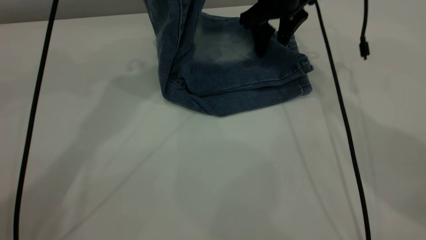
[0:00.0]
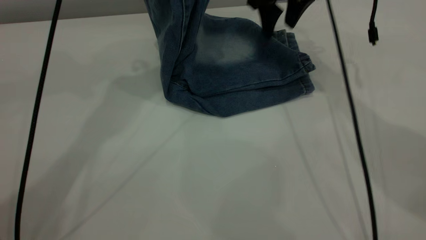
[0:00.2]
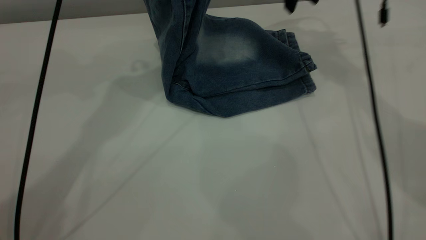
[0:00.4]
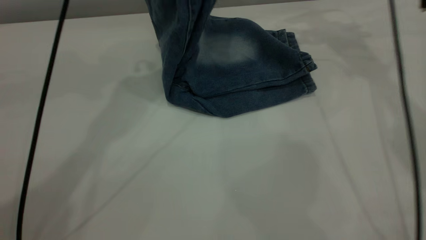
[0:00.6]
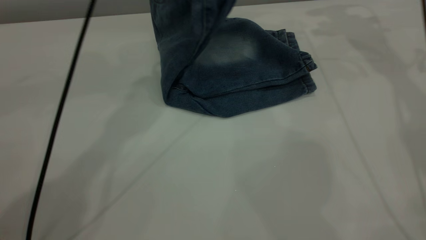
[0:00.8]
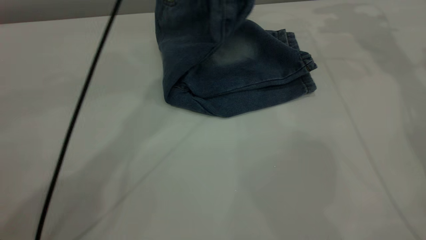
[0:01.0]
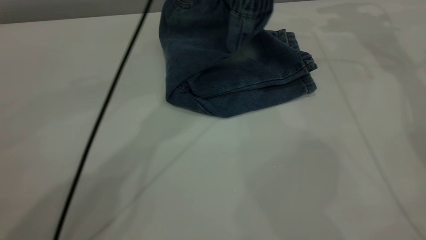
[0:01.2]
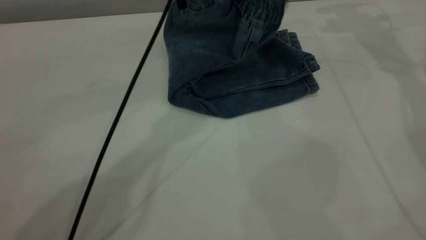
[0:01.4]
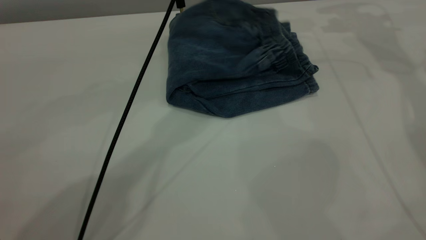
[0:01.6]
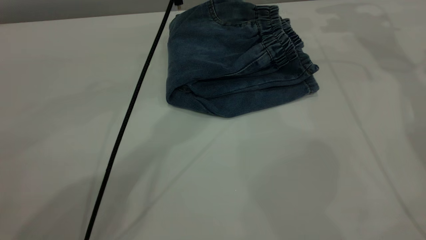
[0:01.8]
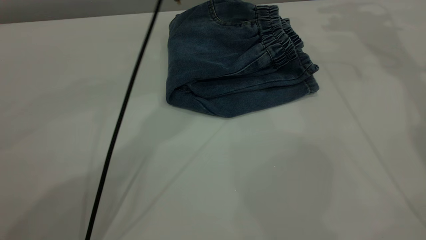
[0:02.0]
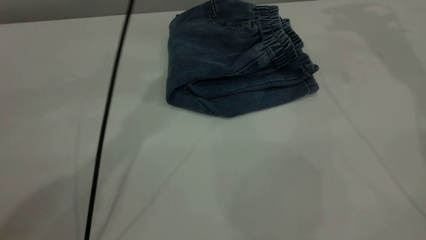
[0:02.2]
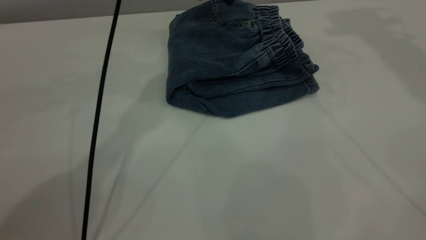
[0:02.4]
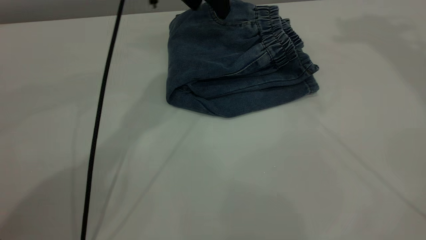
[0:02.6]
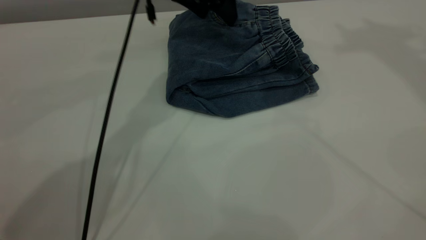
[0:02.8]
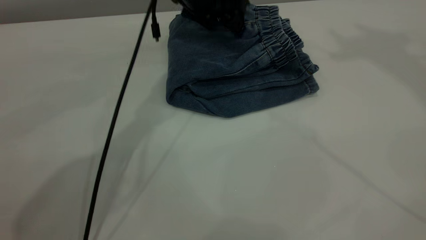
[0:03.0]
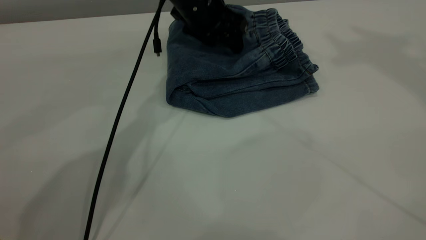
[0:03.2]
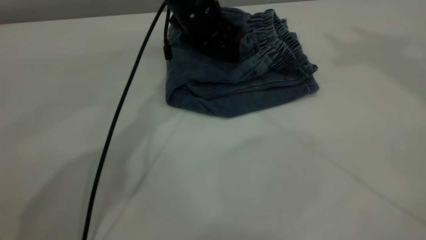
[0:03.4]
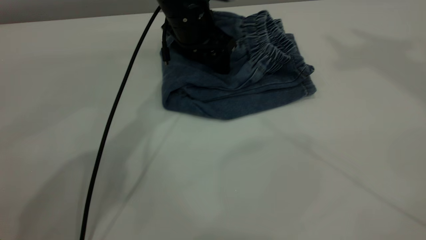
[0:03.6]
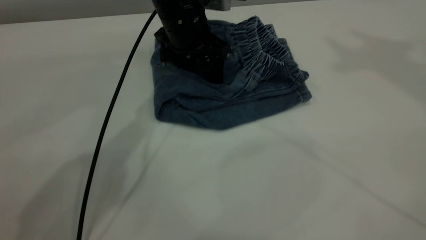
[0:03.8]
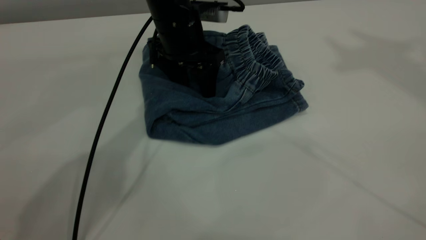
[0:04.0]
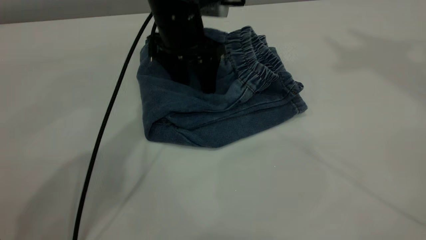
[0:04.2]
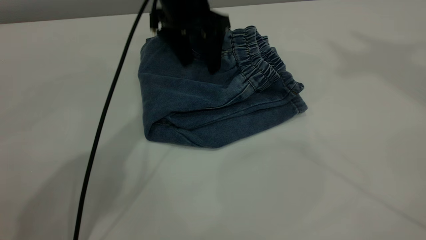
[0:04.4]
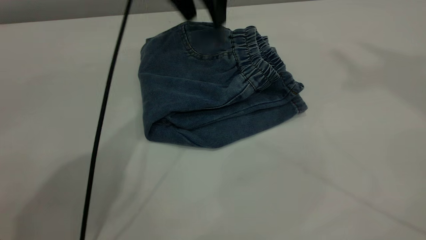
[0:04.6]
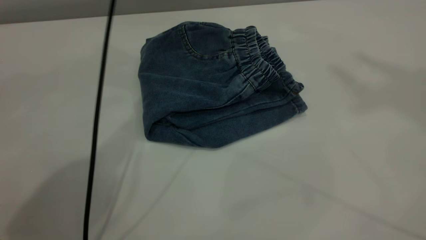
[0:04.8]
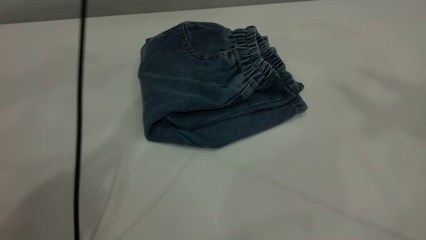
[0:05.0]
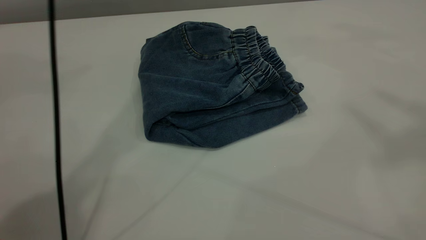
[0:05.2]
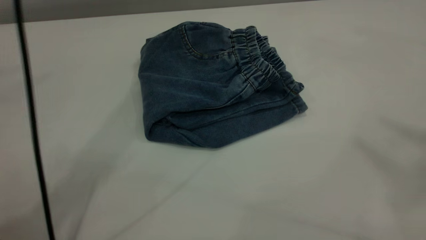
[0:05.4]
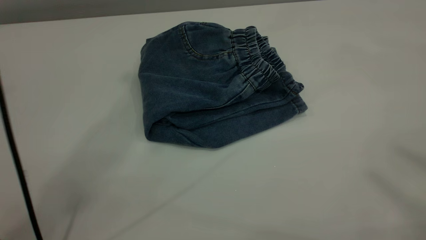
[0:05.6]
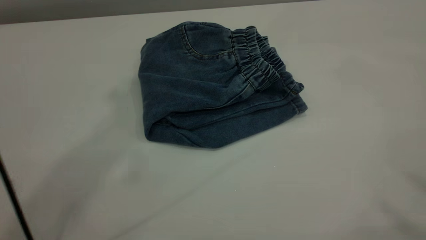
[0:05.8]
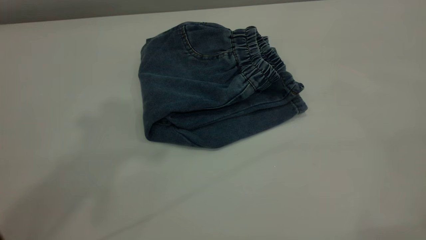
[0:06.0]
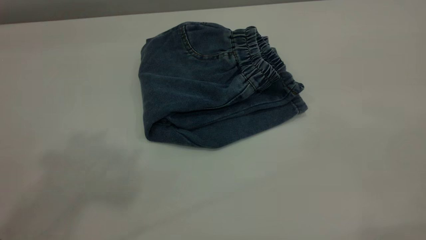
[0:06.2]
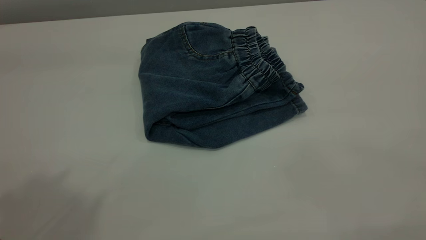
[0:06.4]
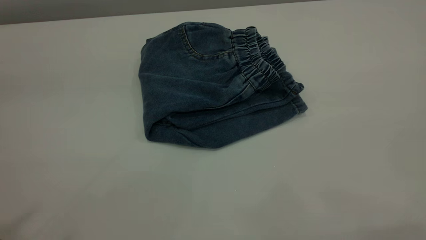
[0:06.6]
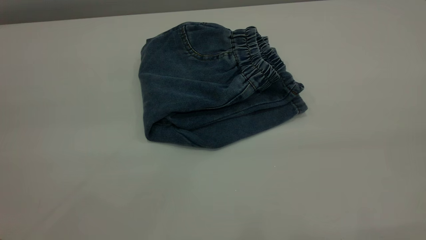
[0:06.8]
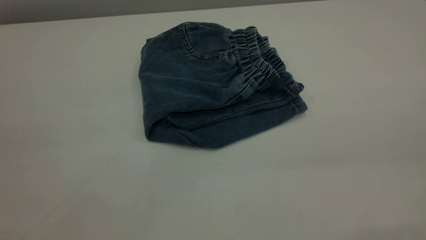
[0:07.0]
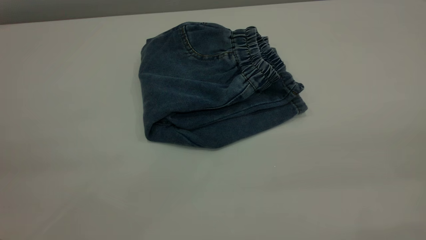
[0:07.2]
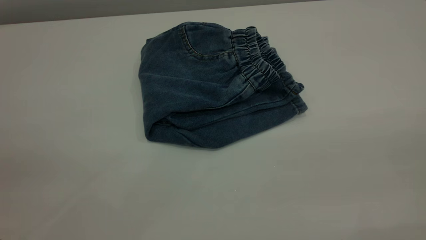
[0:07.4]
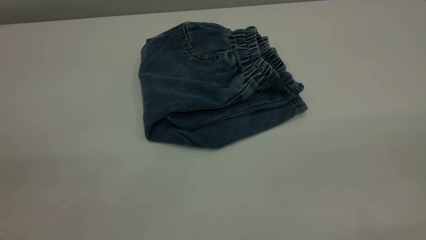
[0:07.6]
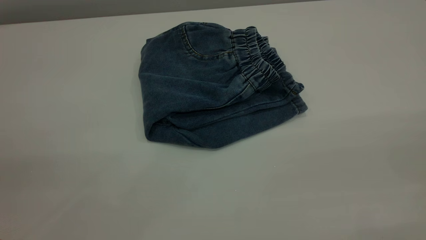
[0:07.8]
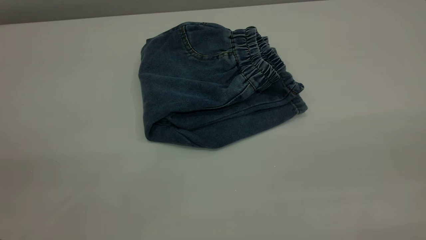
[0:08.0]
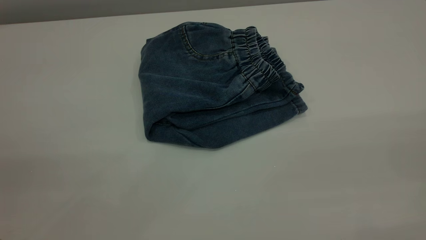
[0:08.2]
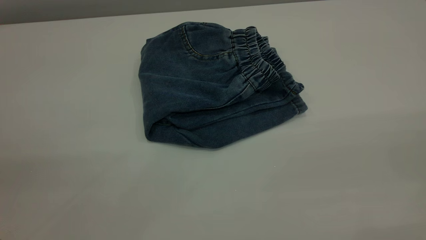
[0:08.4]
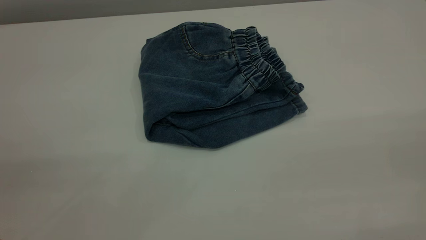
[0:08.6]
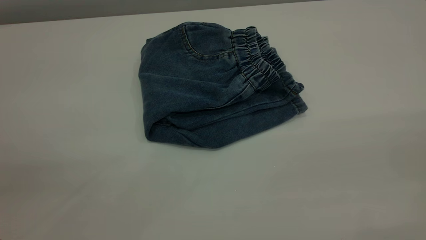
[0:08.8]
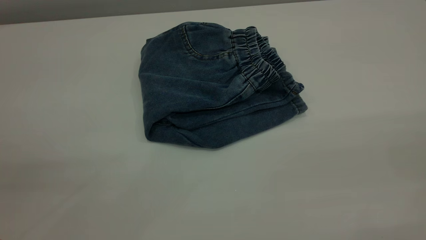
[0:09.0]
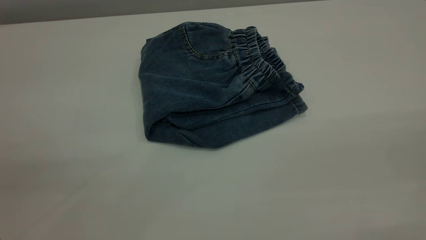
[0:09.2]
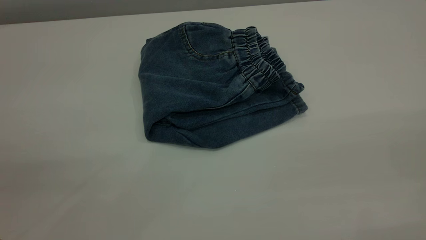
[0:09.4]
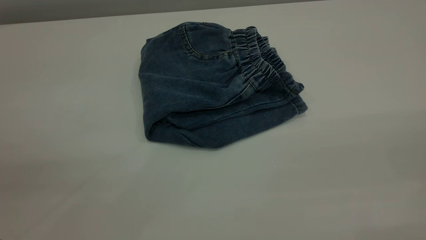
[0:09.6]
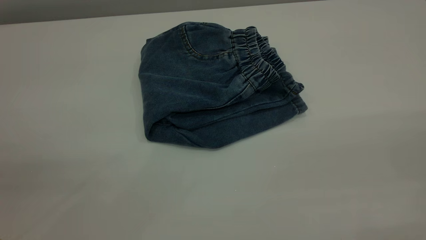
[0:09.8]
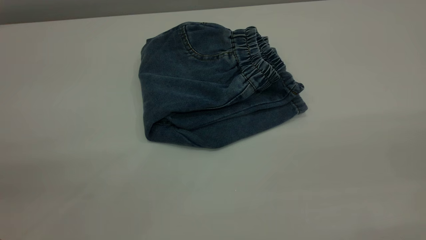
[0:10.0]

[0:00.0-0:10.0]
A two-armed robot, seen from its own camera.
Step, 0.0 to 2.4 s: Fold the pants from left to right.
0.0 to 1.4 s: The right gripper travels to the right and upward by some 20 cm, while the left gripper is displaced to the right and downward by roughly 15 cm.
1.4 to 2.8 s: The right gripper is displaced upward and backward by approximately 30 cm; the left gripper is displaced to the left by approximately 5 cm, and opens up.
2.8 to 4.2 s: The left gripper ends up roughly 5 cm from where it was, while the right gripper ends up some 5 cm from where it was.
4.2 to 5.8 s: The left gripper travels upward by some 40 cm. The right gripper shifts about 25 cm backward.
5.8 to 7.2 s: The left gripper travels backward, to the left and downward by about 35 cm.

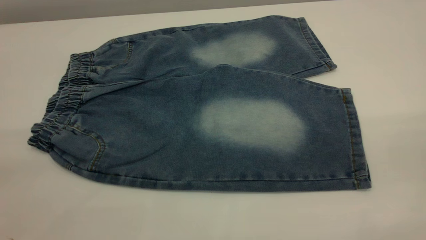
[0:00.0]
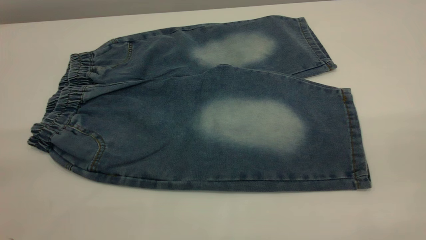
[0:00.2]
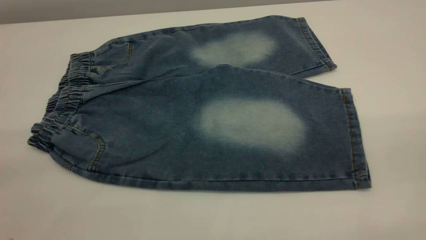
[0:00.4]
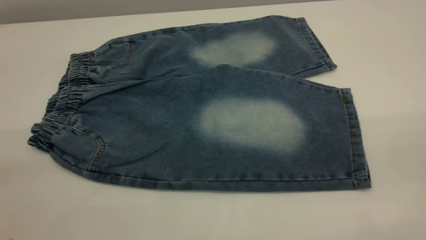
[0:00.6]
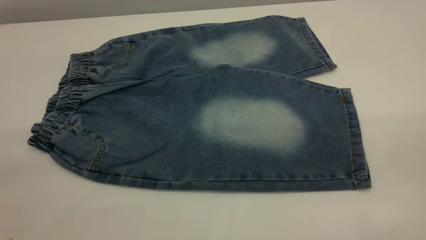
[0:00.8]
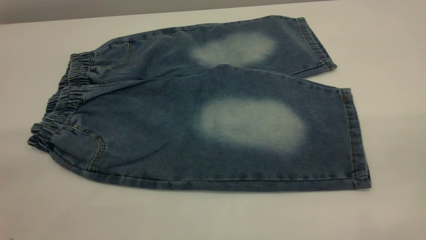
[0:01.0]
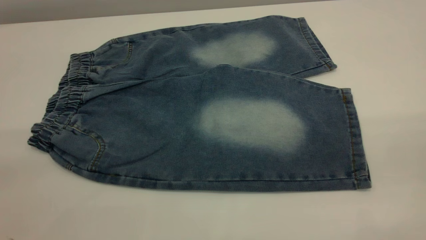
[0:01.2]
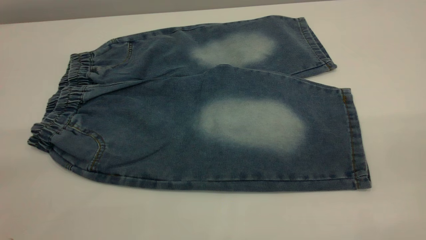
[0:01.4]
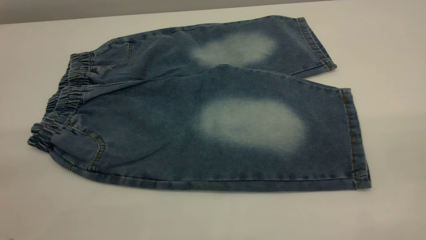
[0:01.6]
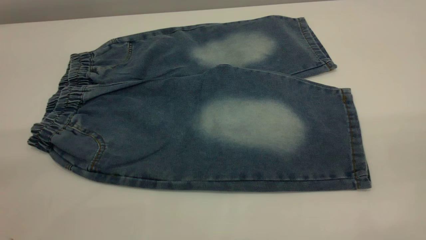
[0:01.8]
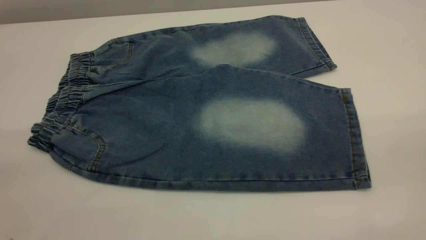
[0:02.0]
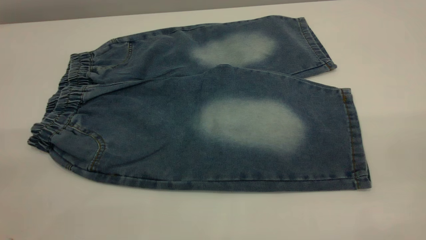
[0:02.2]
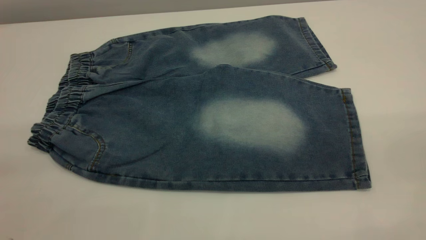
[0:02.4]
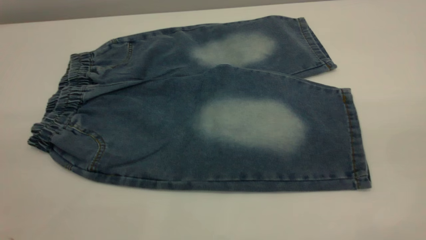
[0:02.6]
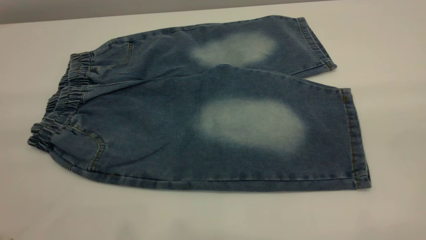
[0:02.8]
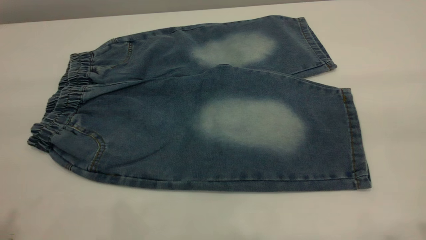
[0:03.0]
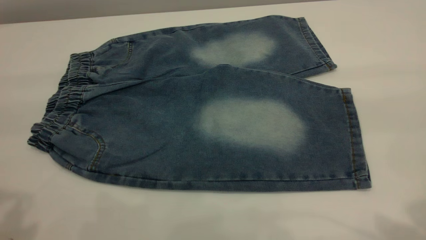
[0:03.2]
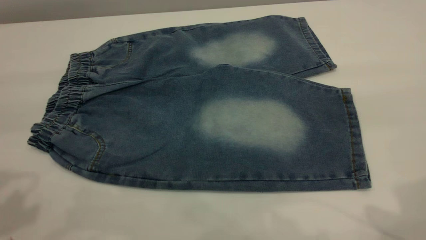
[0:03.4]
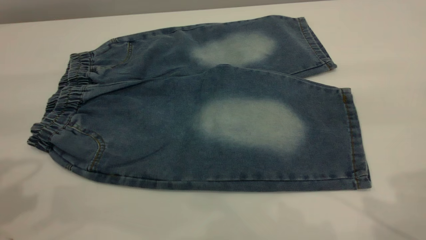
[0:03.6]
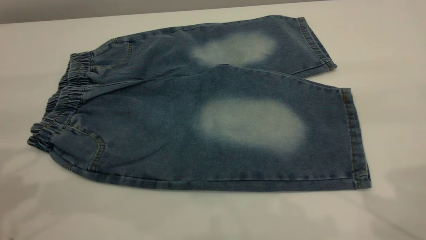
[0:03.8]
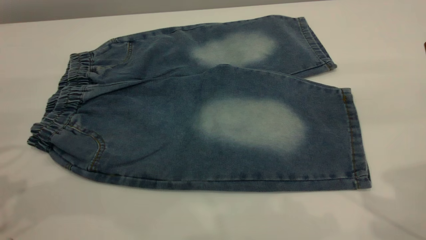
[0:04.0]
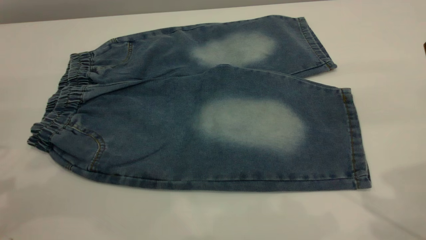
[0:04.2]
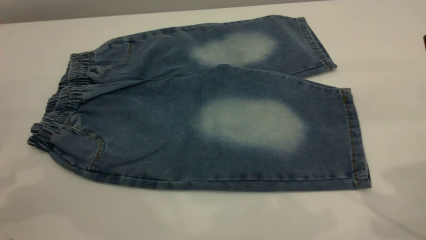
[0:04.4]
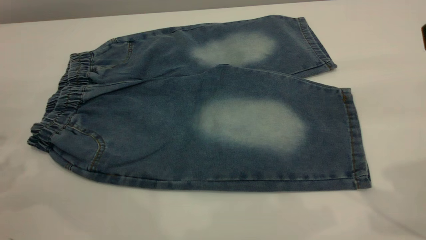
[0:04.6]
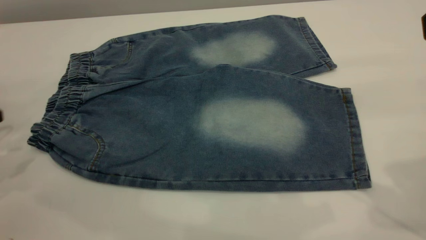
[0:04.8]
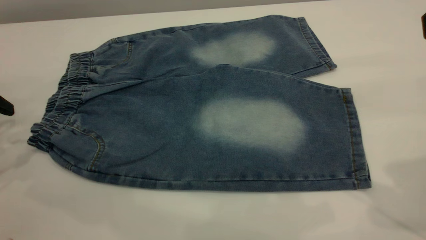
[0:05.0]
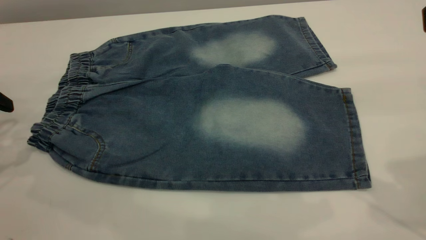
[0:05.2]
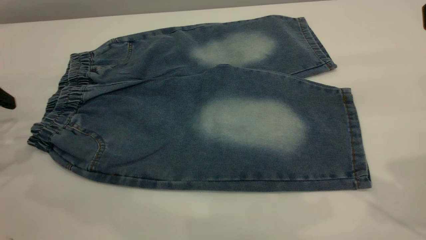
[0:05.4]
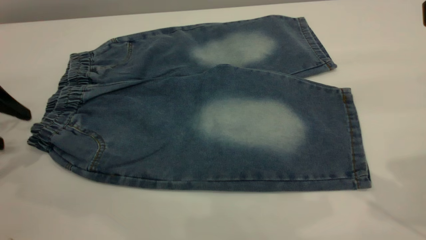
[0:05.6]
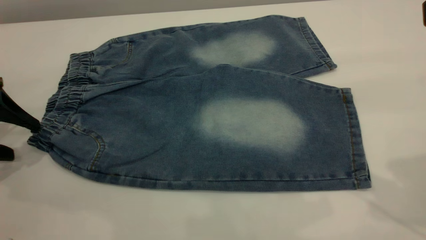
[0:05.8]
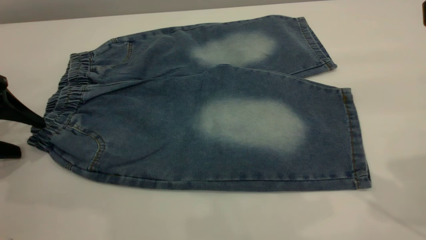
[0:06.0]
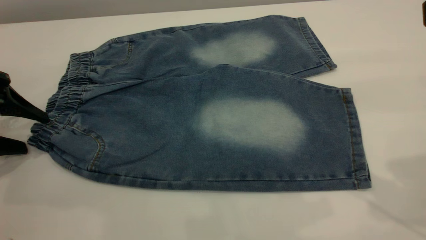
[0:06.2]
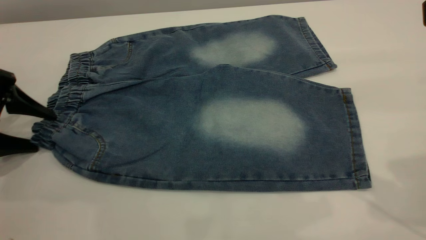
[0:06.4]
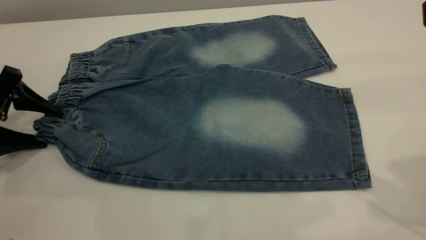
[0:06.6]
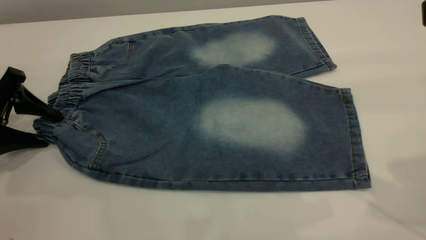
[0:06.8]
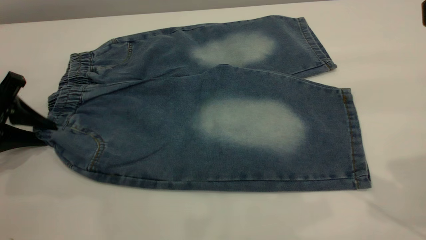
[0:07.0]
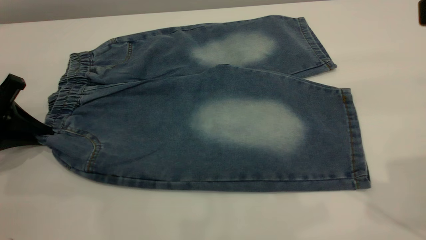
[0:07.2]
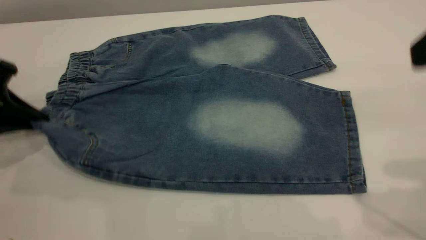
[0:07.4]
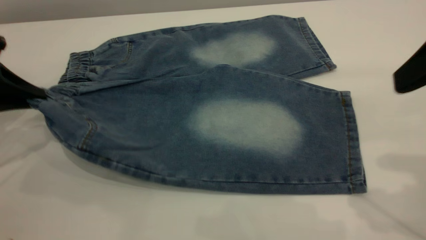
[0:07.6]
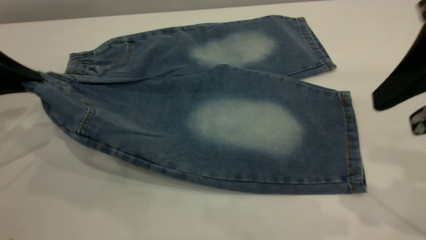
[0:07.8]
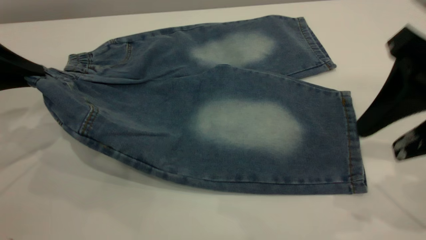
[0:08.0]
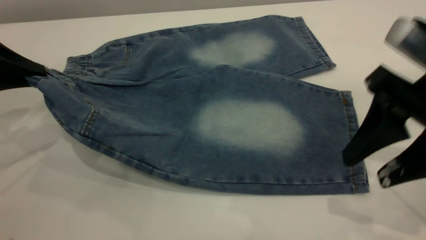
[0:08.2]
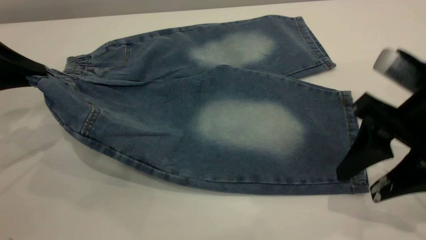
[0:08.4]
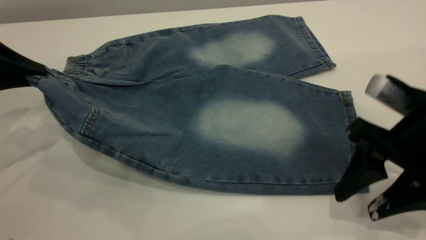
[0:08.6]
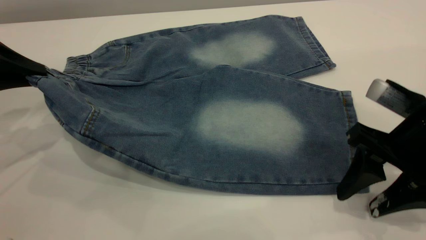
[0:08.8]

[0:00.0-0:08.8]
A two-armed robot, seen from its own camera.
0.0 to 1.4 s: Both grippers stay put.
4.4 to 5.8 s: The left gripper is displaced downward by some 10 cm.
5.8 to 7.4 s: The left gripper closes.
7.4 to 8.8 s: The left gripper shifts by roughly 5 cm; the right gripper goes about 15 cm downward.
